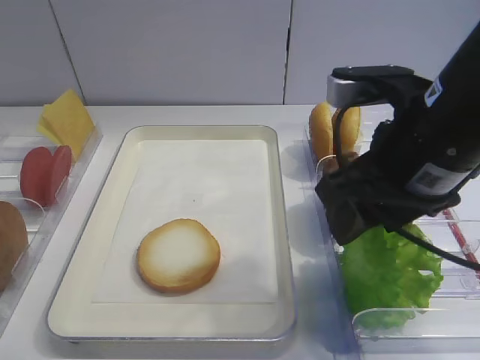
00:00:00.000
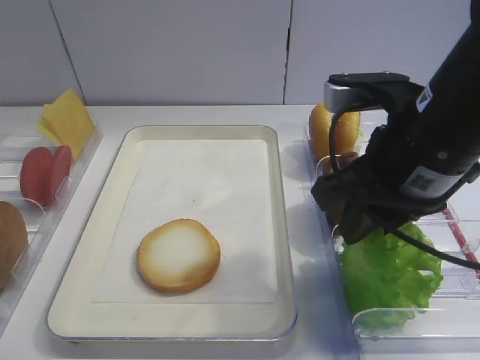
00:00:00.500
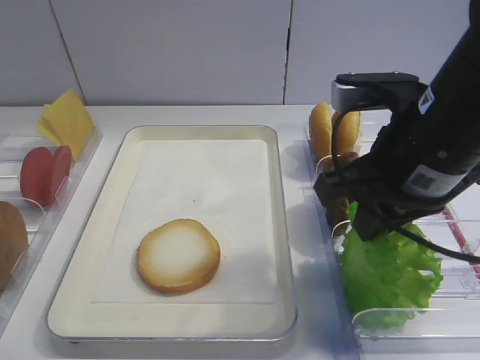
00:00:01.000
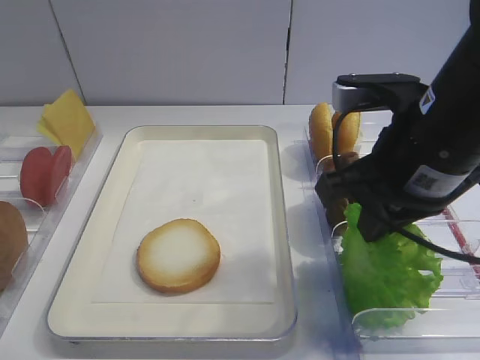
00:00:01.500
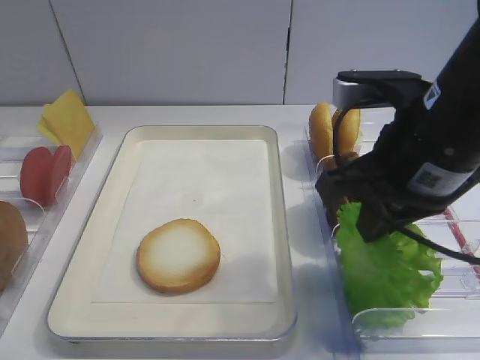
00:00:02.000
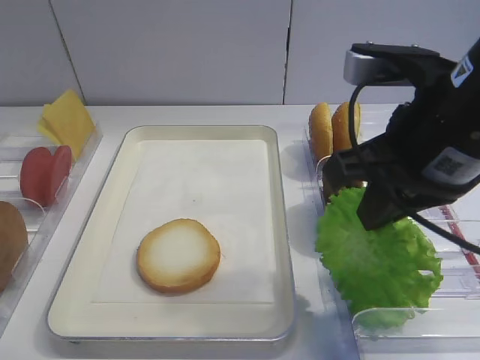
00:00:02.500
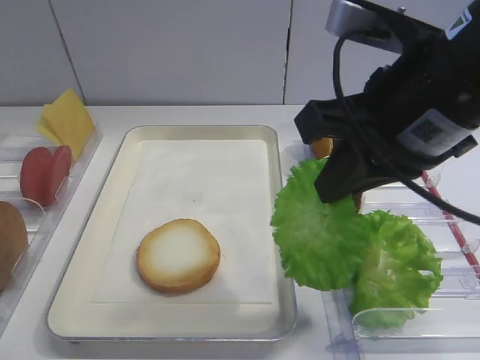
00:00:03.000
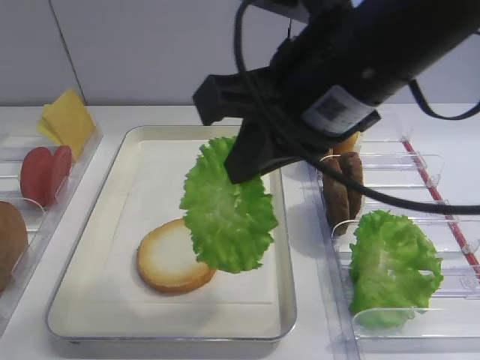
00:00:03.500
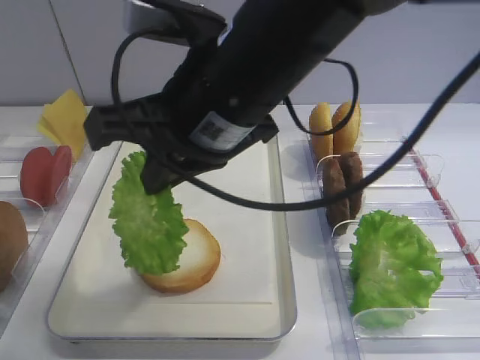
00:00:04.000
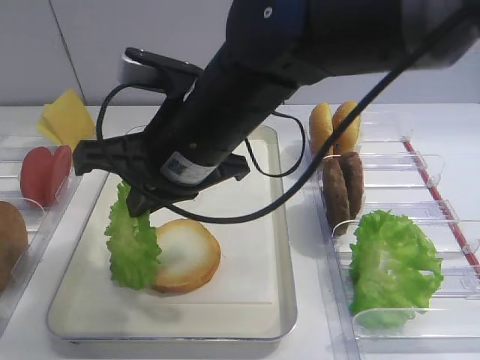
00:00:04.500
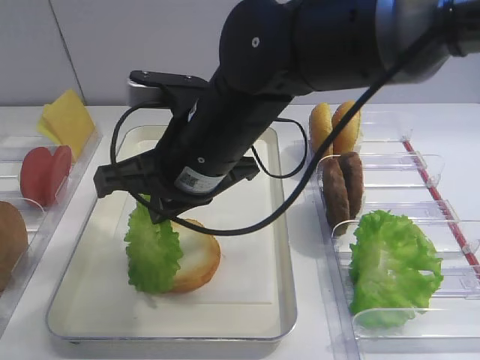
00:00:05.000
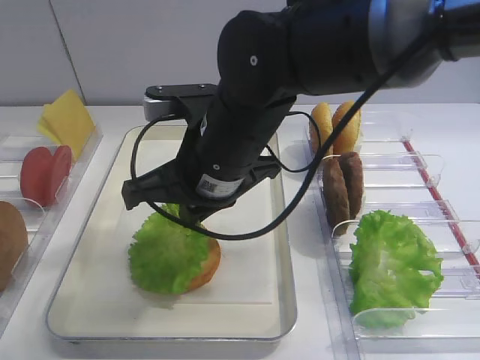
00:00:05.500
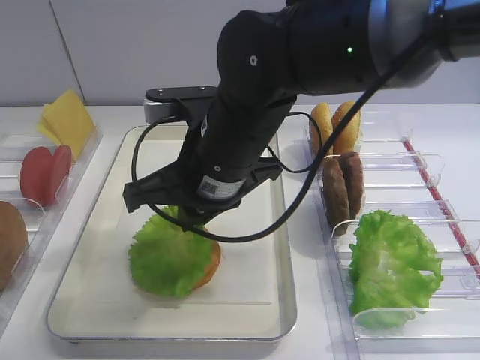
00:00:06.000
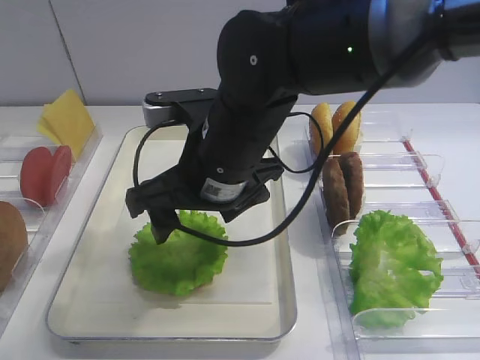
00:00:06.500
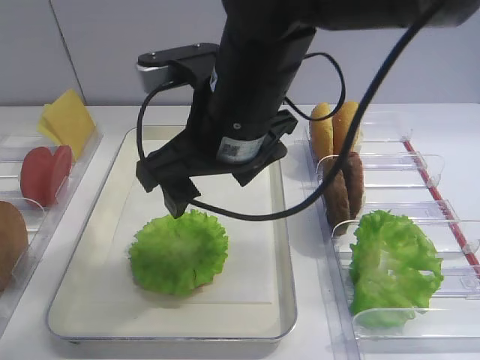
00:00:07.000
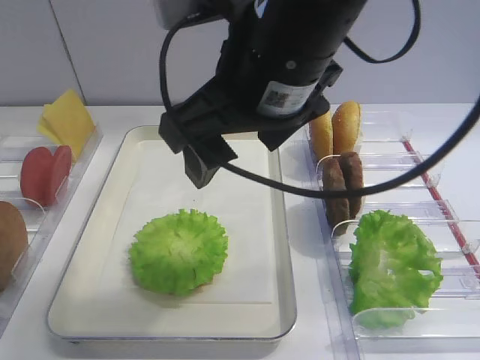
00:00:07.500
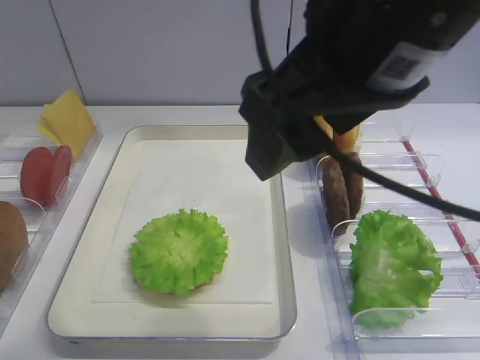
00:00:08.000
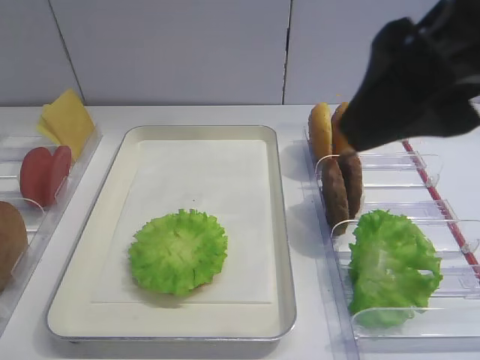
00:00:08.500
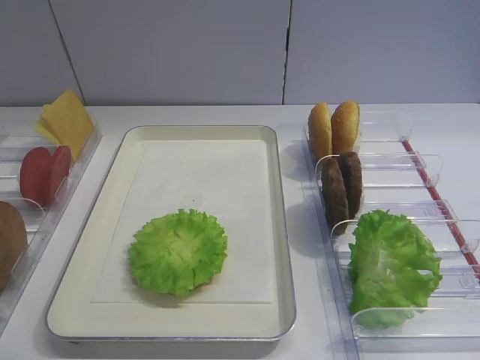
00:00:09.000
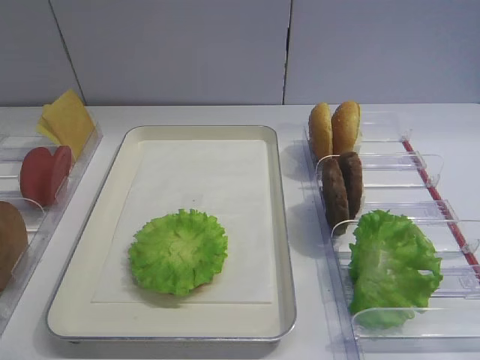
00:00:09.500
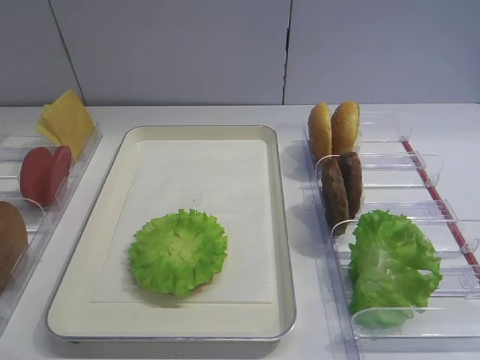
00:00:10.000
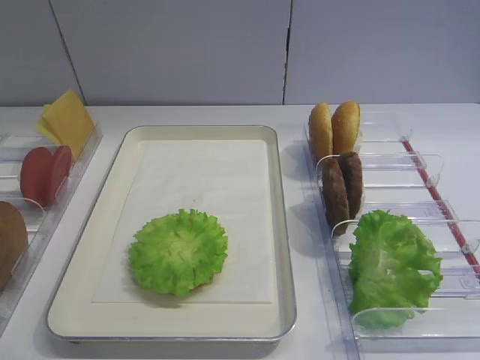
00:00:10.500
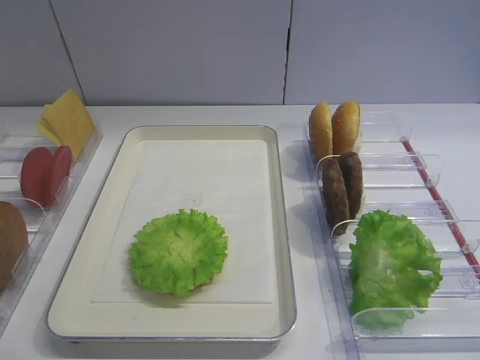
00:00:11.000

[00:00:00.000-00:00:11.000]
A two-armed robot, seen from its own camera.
Step, 00:00:00.000 to 00:00:02.500: Pick up the lettuce leaf with the right gripper.
Step, 00:00:03.000 to 00:00:07.000: Place the lettuce leaf on the bread slice with the right gripper.
00:00:00.000 to 00:00:02.000: The right gripper closes up.
00:00:02.000 to 00:00:03.500: The right gripper goes roughly 10 cm to the left and upward.
00:00:03.500 to 00:00:05.500: The right gripper moves downward, to the left and forward, roughly 15 cm.
00:00:05.500 to 00:00:07.500: The right gripper travels upward by about 10 cm, and opens its fingers.
00:00:07.500 to 00:00:09.000: The right gripper is displaced to the right and backward by about 25 cm.

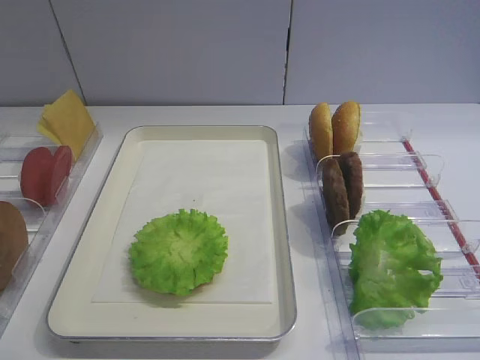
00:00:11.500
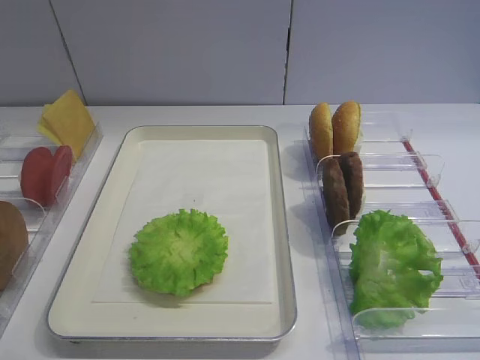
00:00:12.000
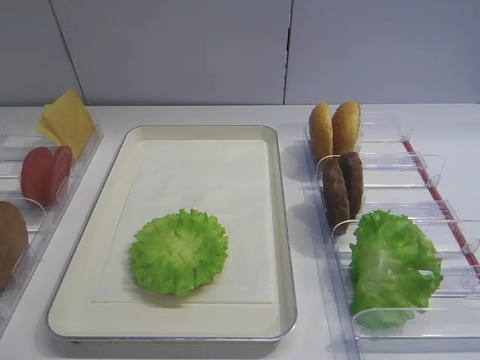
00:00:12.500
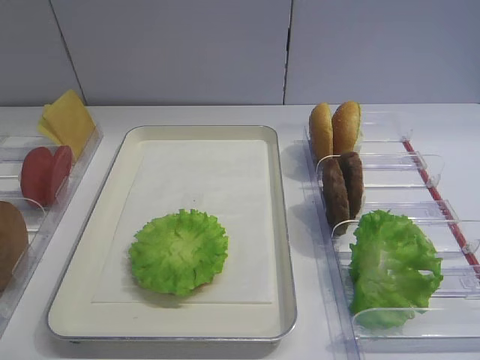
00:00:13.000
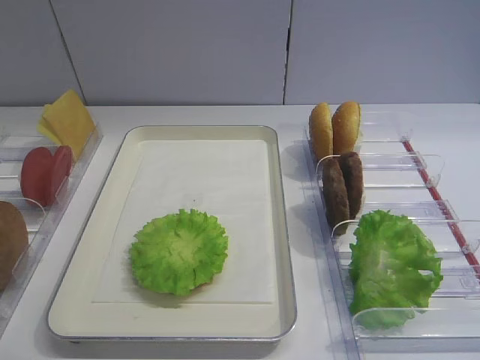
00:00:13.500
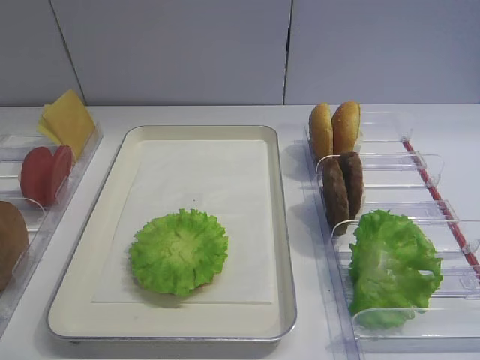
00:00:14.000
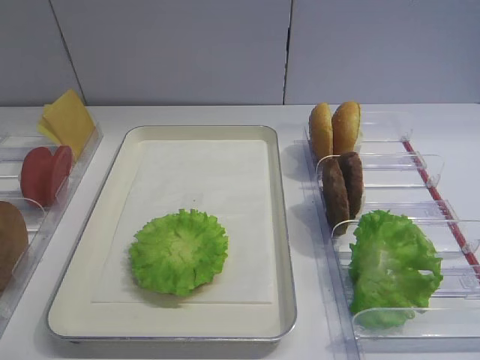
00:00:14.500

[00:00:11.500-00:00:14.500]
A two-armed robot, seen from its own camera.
00:00:11.500 to 00:00:14.500: Both grippers stay put.

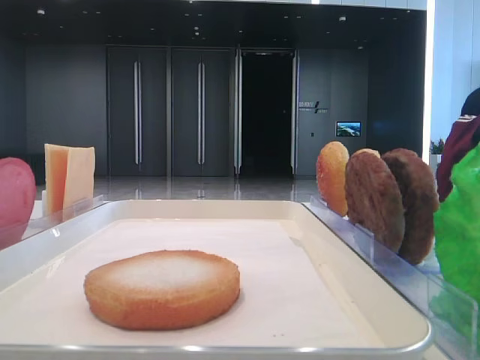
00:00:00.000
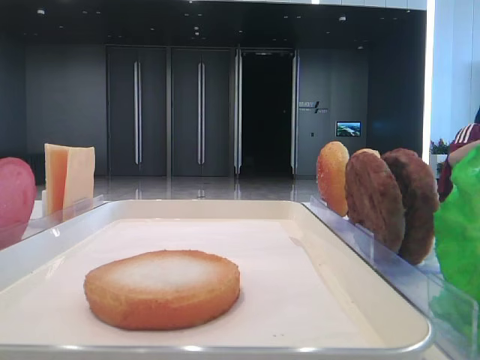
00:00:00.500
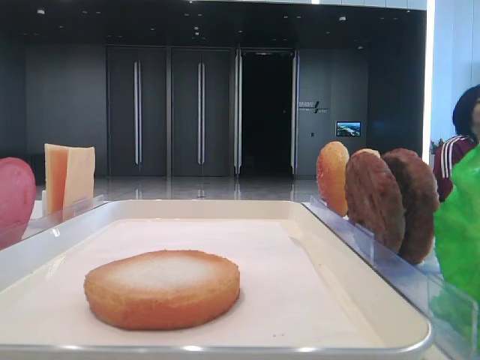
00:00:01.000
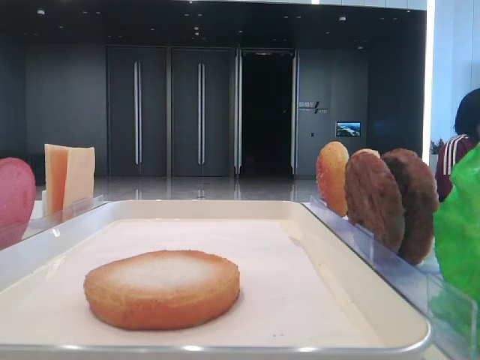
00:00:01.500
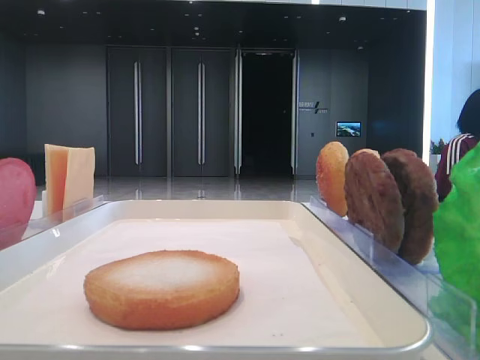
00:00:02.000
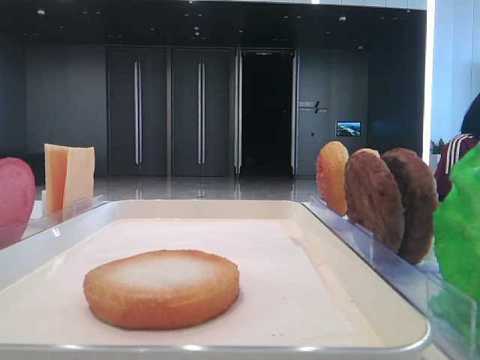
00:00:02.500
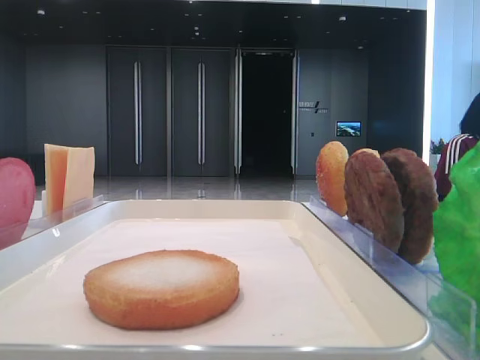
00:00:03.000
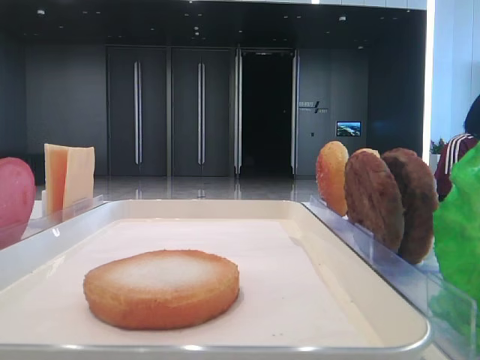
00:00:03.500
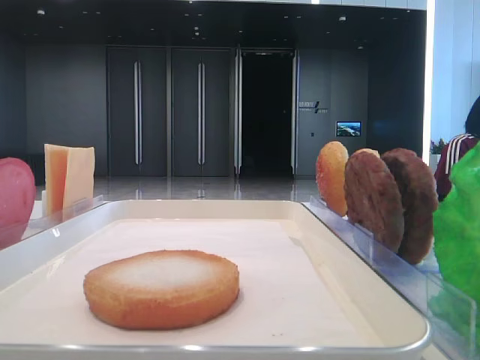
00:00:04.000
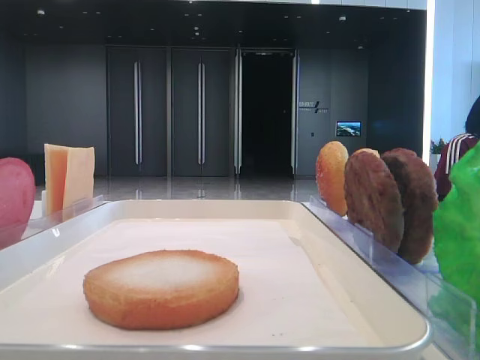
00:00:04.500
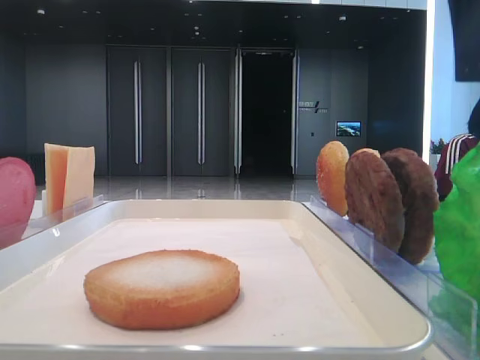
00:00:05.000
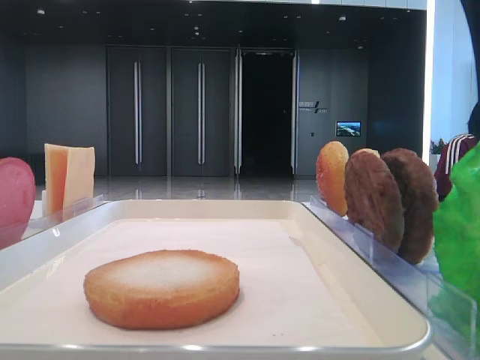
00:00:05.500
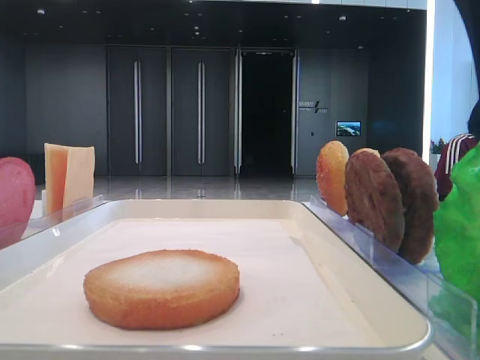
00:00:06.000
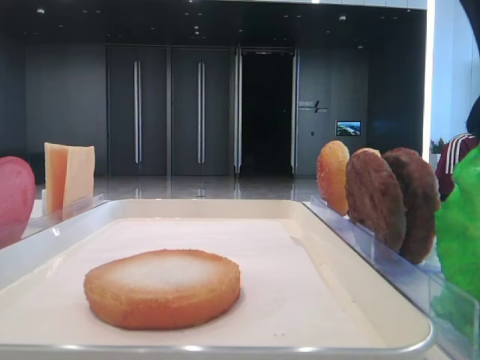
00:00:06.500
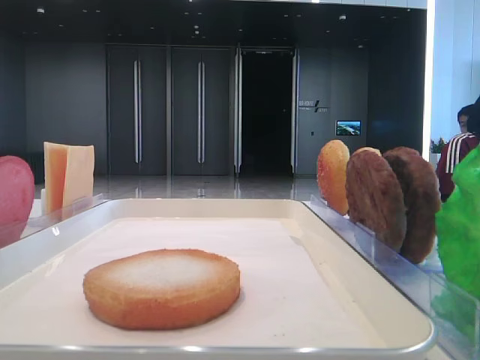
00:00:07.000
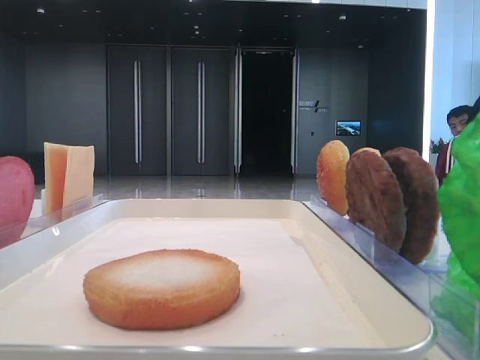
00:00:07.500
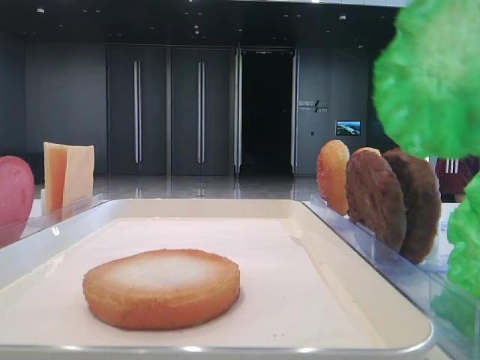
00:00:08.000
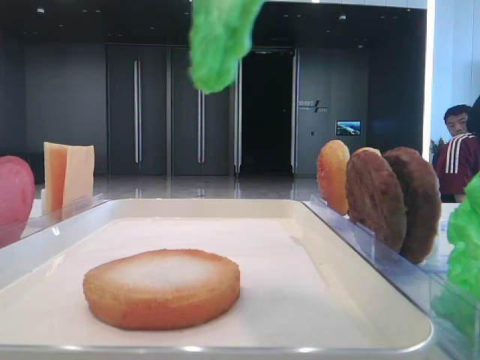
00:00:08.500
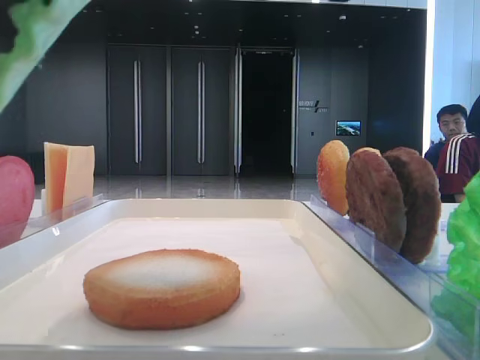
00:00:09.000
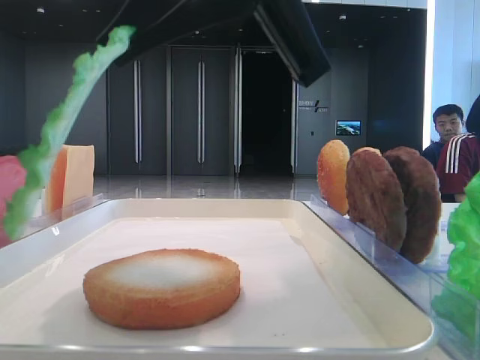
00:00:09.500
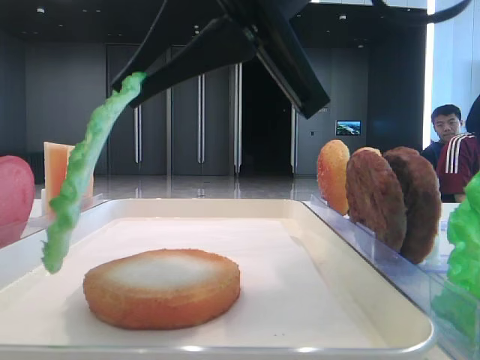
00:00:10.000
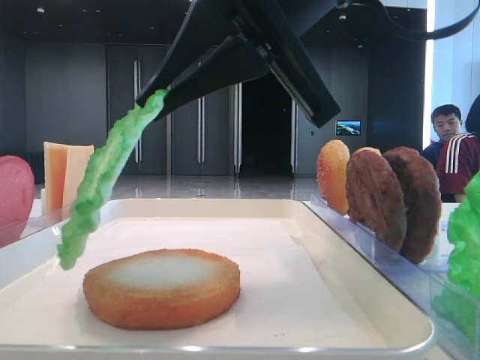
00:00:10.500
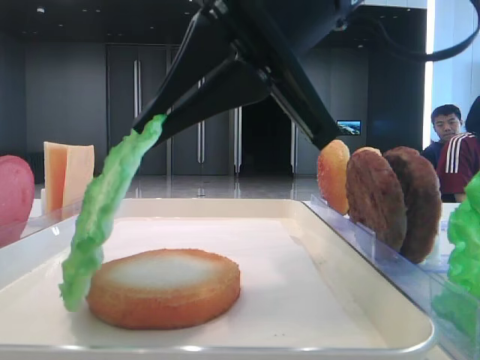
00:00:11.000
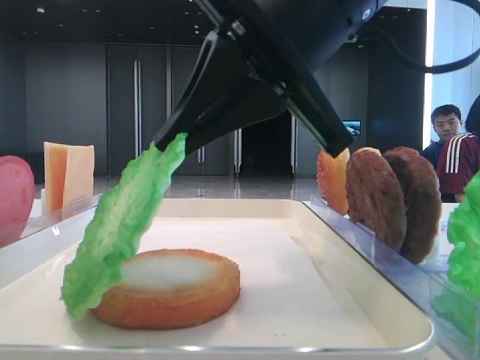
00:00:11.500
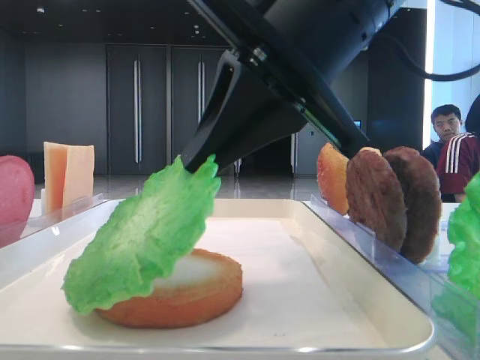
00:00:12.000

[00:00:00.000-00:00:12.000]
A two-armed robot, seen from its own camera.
Step, 00:00:00.000 to 00:00:07.000: Grab the lettuce leaf with the right hand.
00:00:04.000 to 00:00:06.000: The right gripper shifts some 5 cm downward.
00:00:06.000 to 00:00:08.000: The right gripper goes approximately 5 cm upward, and closes up.
00:00:08.000 to 00:00:10.000: The right gripper heads to the left, downward and forward, covering approximately 15 cm.
00:00:10.000 to 00:00:12.000: There are only small adjustments of the grippers.
